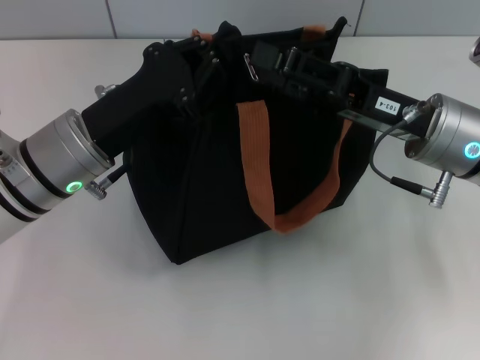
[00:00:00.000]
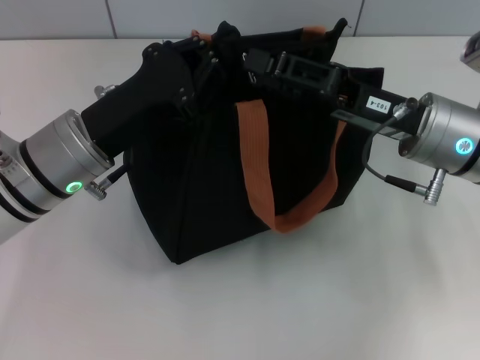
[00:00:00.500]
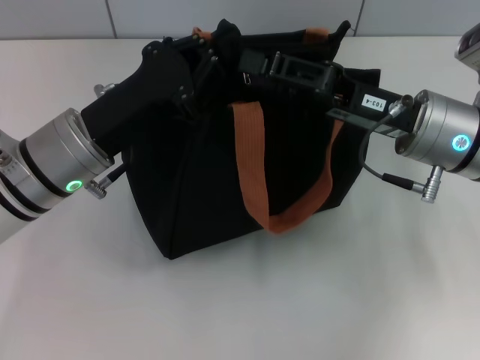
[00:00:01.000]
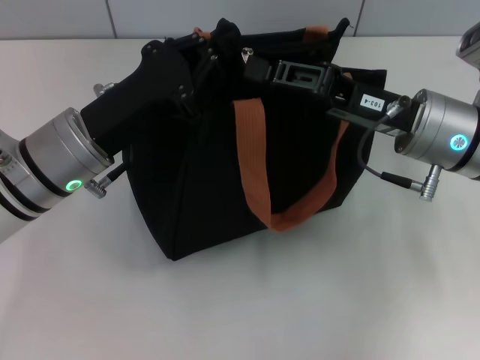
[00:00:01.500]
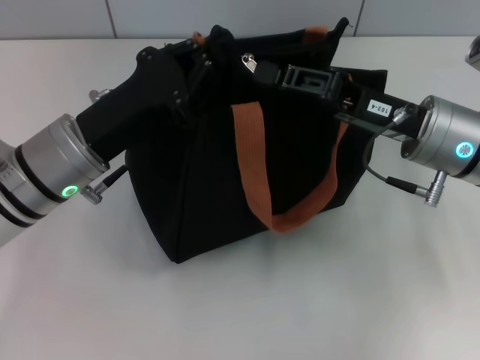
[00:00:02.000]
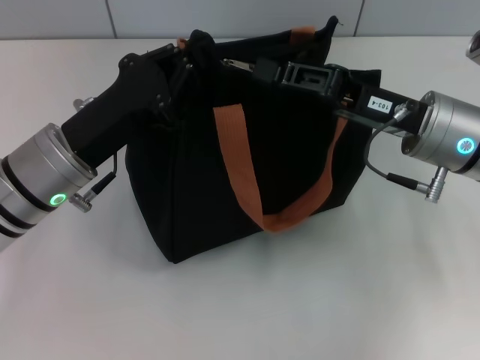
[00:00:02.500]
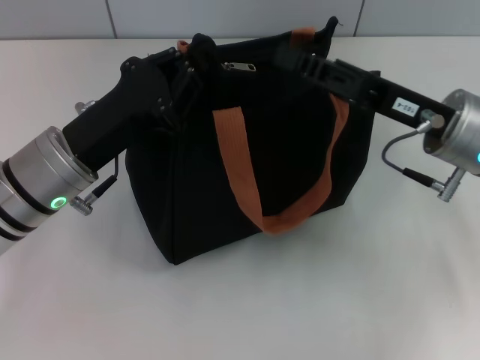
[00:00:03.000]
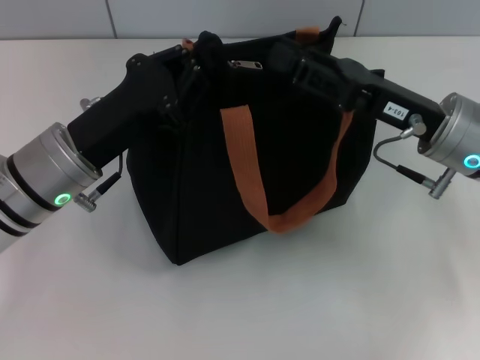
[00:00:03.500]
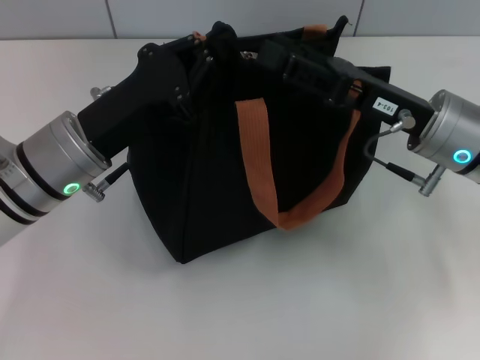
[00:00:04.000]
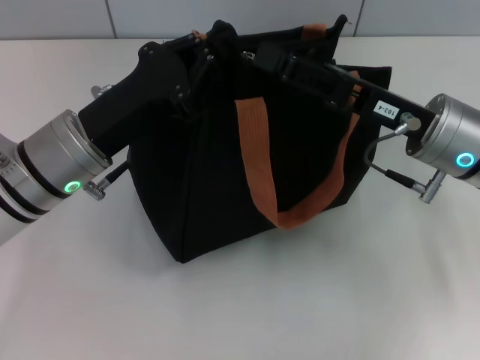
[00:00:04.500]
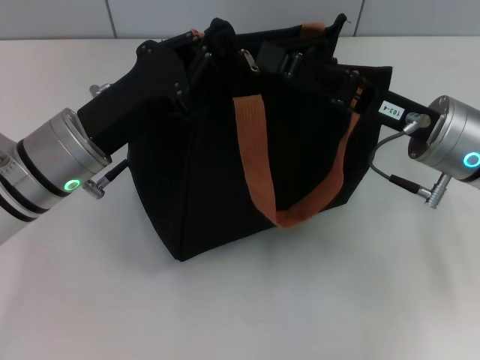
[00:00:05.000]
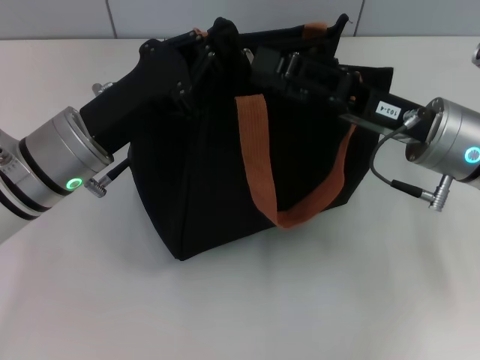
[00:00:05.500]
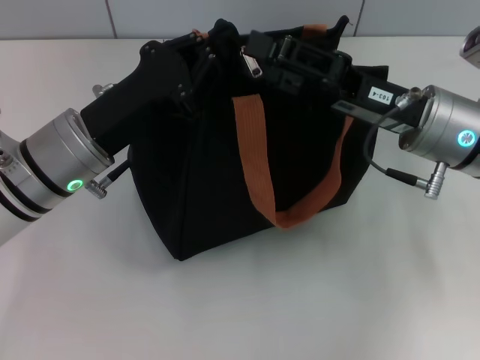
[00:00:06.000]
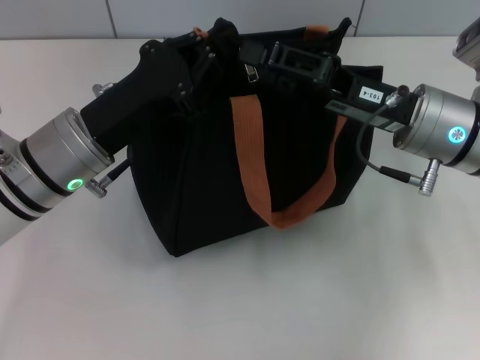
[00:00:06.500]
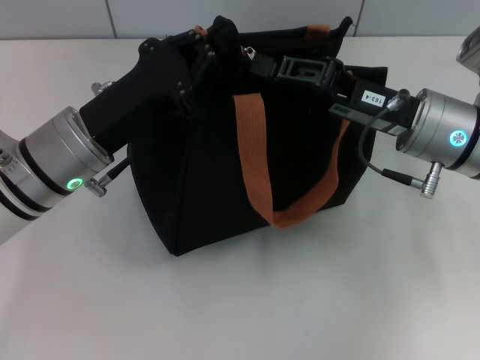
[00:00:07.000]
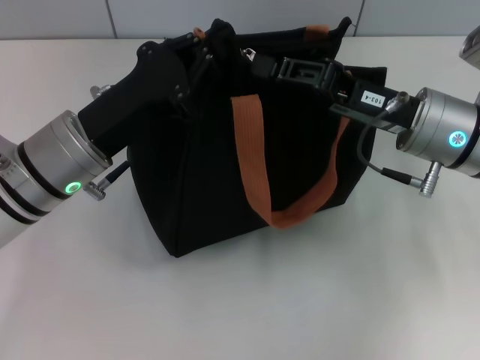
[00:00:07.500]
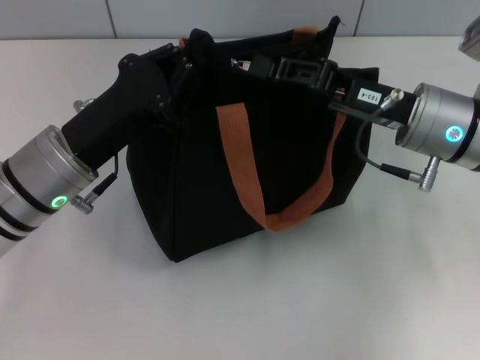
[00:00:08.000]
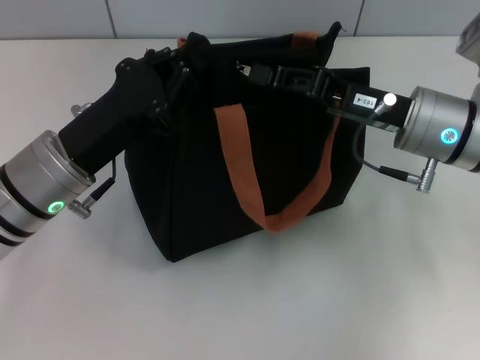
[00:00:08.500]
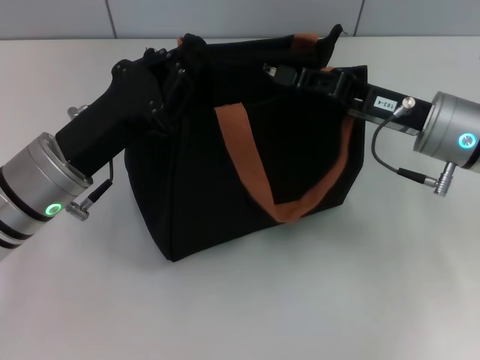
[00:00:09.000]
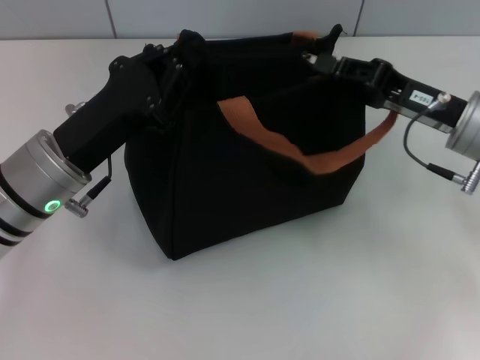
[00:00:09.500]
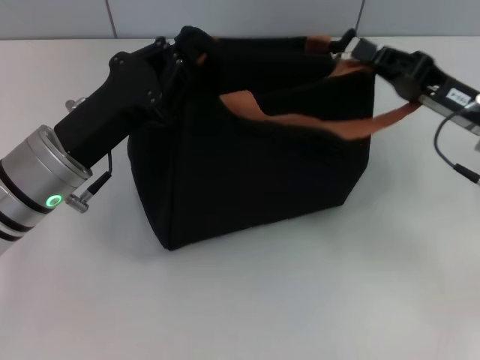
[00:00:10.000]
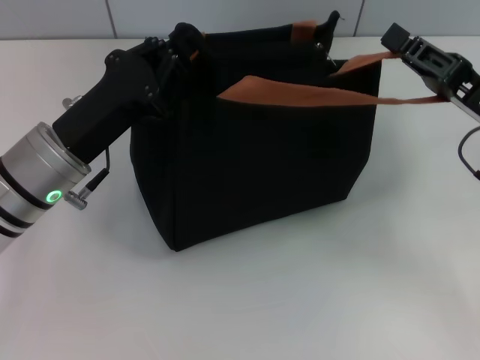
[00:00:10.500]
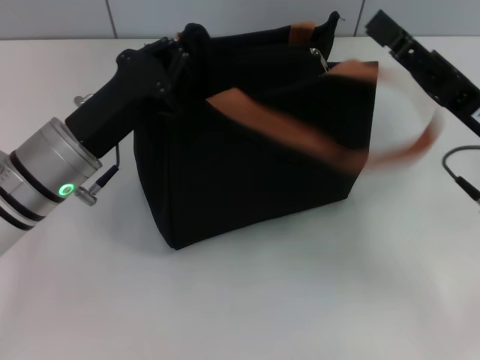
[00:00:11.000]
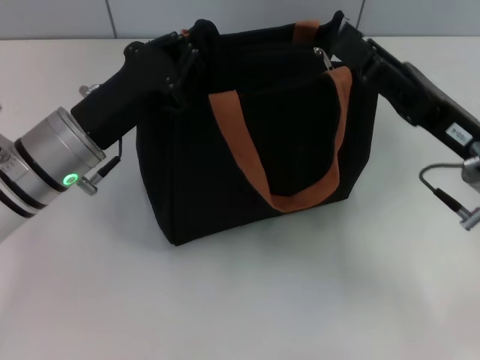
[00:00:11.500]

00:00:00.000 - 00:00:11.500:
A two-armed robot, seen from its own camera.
00:00:00.000 - 00:00:02.000: The right gripper closes.
00:00:02.000 - 00:00:04.000: The right gripper opens.
00:00:06.000 - 00:00:07.500: The right gripper closes its fingers.
00:00:07.500 - 00:00:09.500: The right gripper is displaced to the right by about 5 cm.
00:00:09.500 - 00:00:11.500: The right gripper goes approximately 5 cm backward, and opens up.

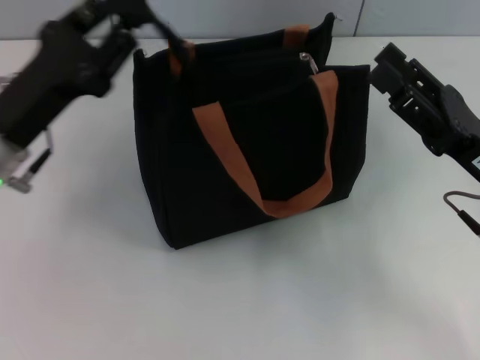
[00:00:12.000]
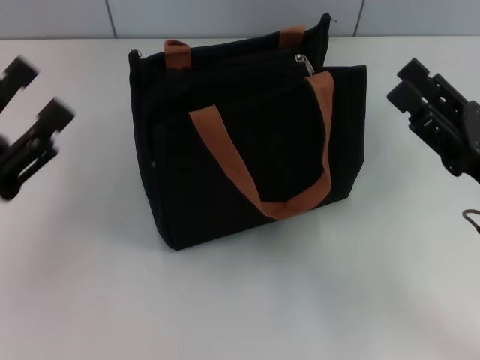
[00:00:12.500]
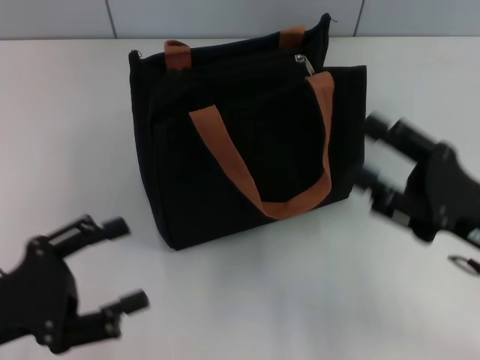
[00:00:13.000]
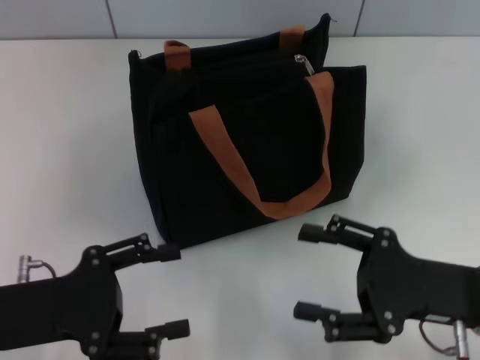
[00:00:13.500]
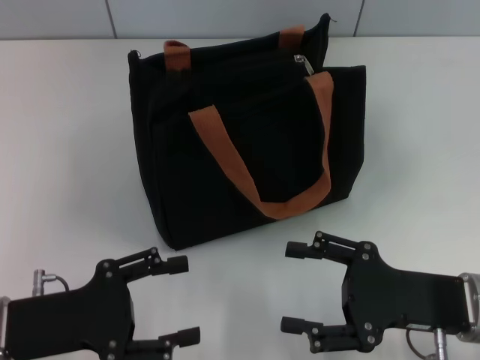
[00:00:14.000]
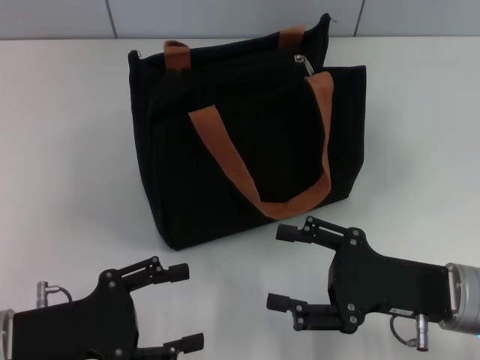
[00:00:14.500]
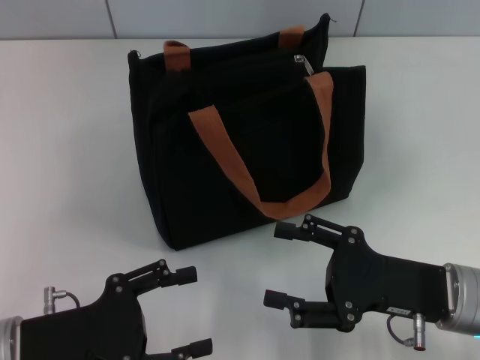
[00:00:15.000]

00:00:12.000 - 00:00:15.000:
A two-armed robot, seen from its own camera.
00:00:12.000 - 00:00:13.500: The right gripper ends up some 5 cm from where it was. Meanwhile the left gripper shifts roughly 10 cm backward, and opens.
00:00:13.500 - 00:00:15.000: There are only small adjustments of the grippers.

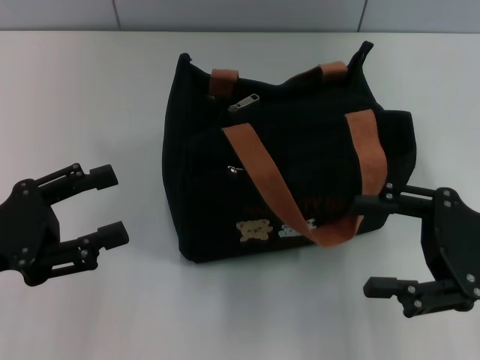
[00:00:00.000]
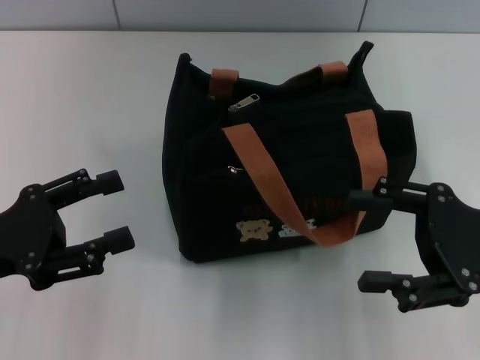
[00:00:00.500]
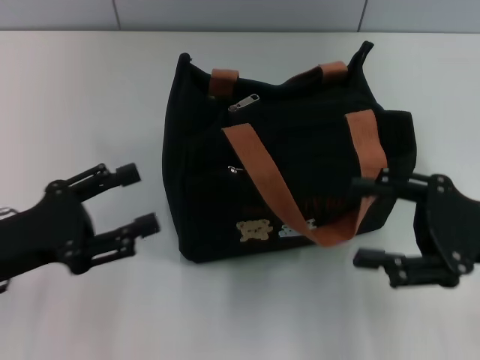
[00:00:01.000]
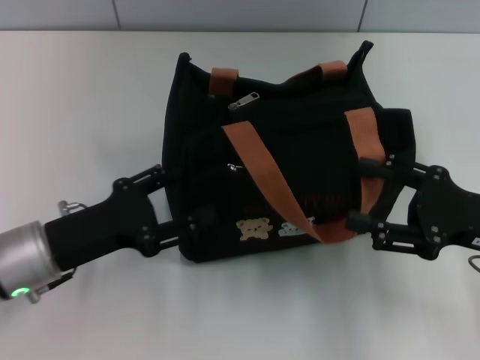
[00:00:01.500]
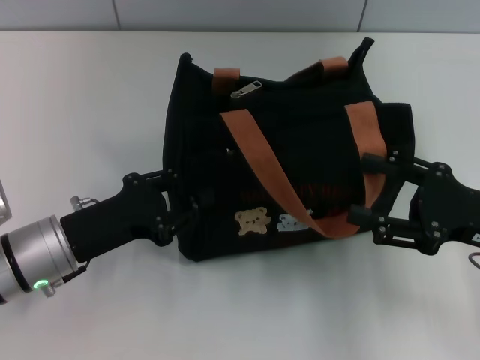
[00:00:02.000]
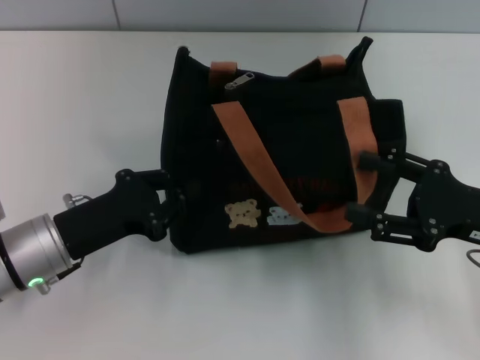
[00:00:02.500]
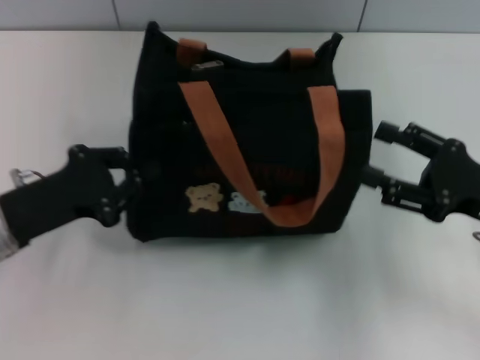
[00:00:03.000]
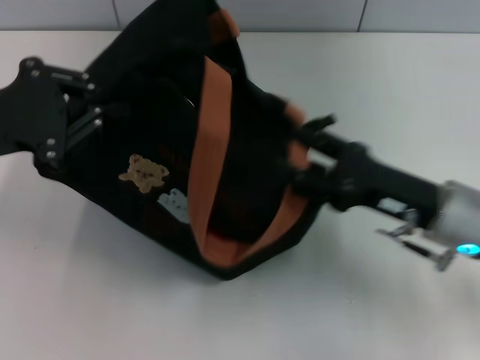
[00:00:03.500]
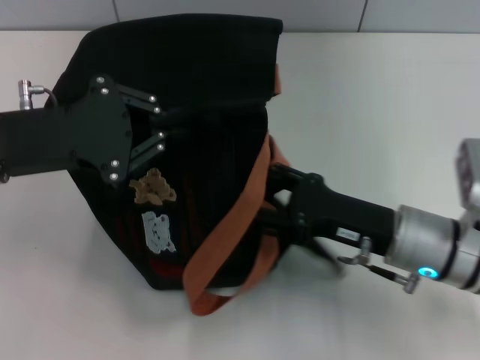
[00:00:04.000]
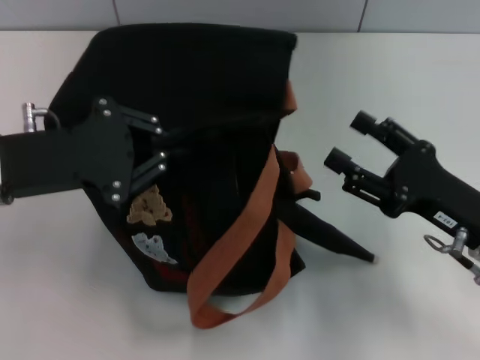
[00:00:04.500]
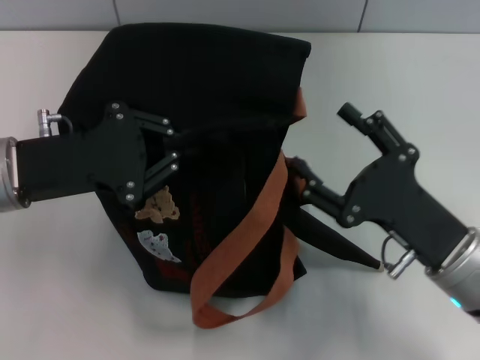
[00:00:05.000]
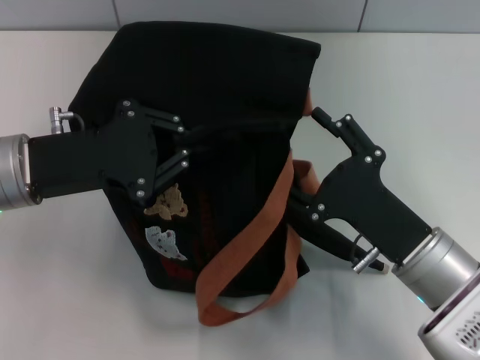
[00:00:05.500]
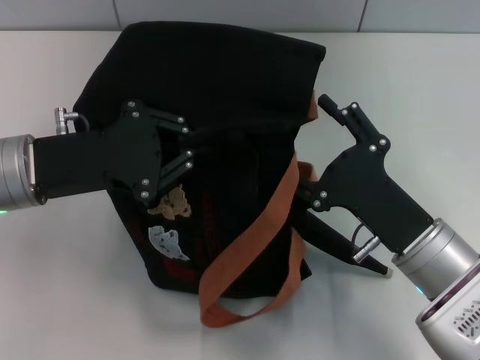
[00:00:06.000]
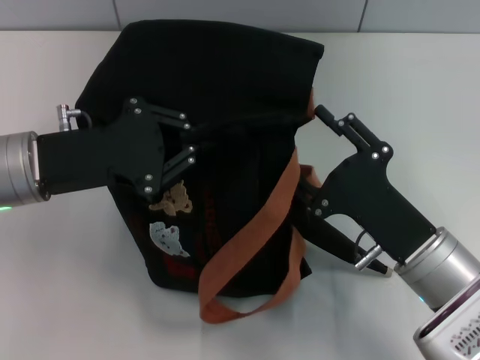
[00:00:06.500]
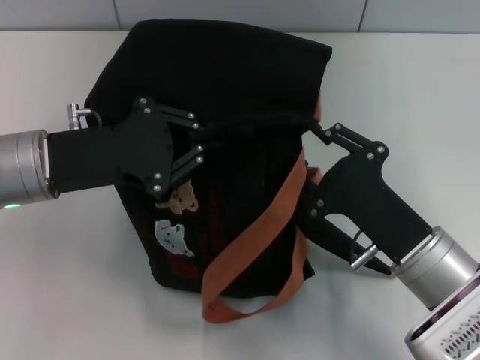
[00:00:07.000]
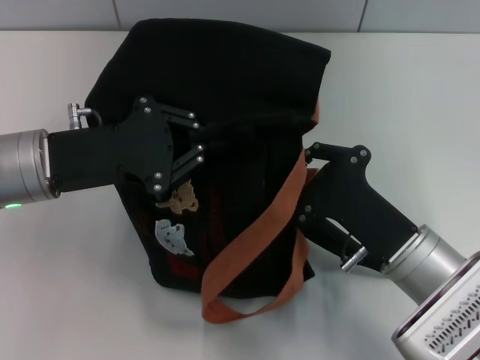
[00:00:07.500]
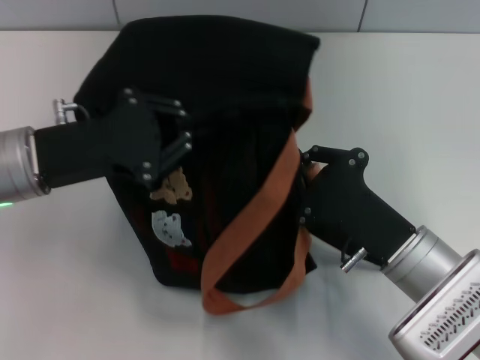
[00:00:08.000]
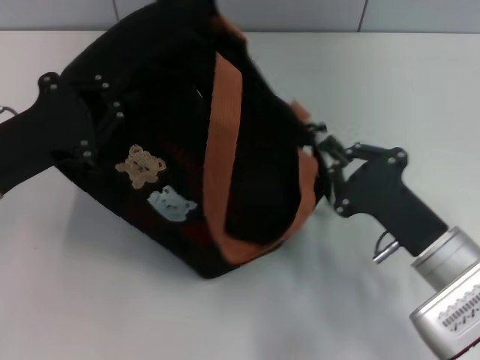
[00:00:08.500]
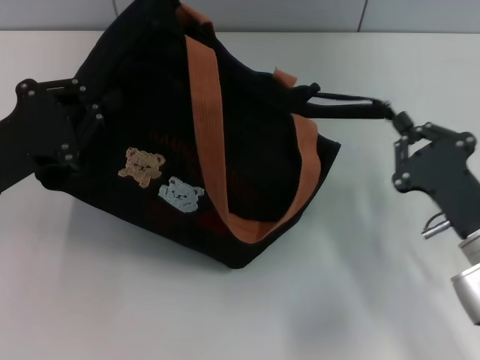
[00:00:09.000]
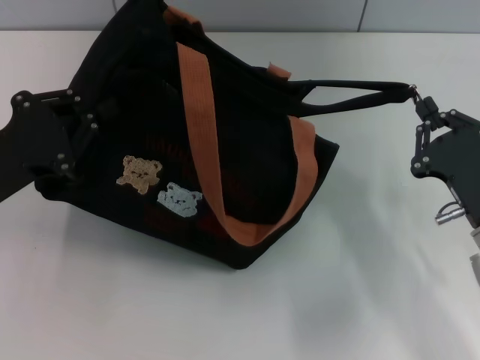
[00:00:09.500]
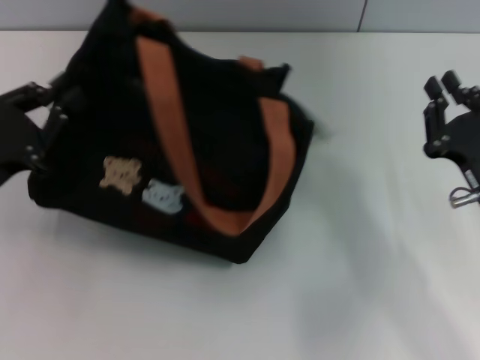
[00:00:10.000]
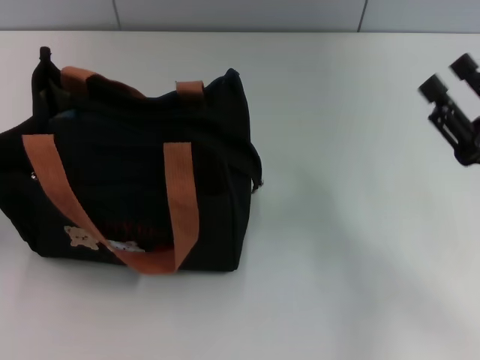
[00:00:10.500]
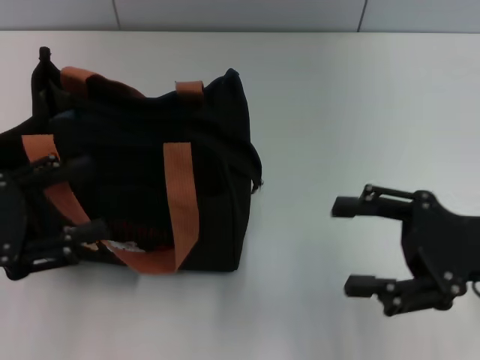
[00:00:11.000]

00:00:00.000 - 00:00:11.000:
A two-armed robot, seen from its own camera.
Step, 00:00:00.000 - 00:00:09.500: Pull open the zipper with your right hand.
Step, 00:00:10.000 - 00:00:10.500: Grab the bag with your left hand.
00:00:00.000 - 00:00:02.000: The left gripper moves to the right and downward, about 10 cm, and closes its fingers.
00:00:02.000 - 00:00:03.500: The right gripper is displaced to the left by approximately 5 cm. The left gripper is displaced upward and to the left by approximately 15 cm, and closes its fingers.
00:00:03.500 - 00:00:05.500: The right gripper swings left and right, roughly 5 cm each way, with 2 reversals, while the left gripper goes approximately 5 cm to the right.
00:00:05.500 - 00:00:07.500: The right gripper closes up.
00:00:07.500 - 00:00:09.000: The right gripper heads to the right, covering approximately 5 cm, while the left gripper moves to the left, about 5 cm.
00:00:09.000 - 00:00:11.000: The left gripper is displaced backward by about 5 cm, and opens up. Meanwhile the right gripper shifts about 10 cm upward, and opens its fingers.
